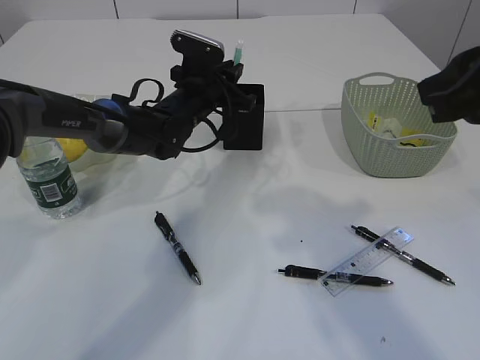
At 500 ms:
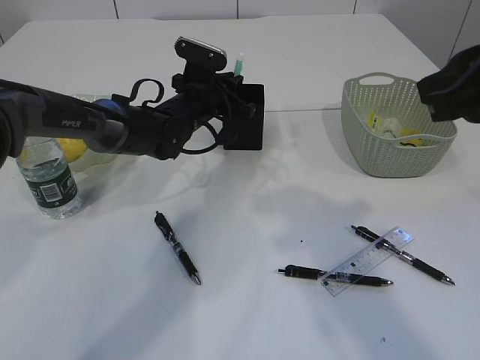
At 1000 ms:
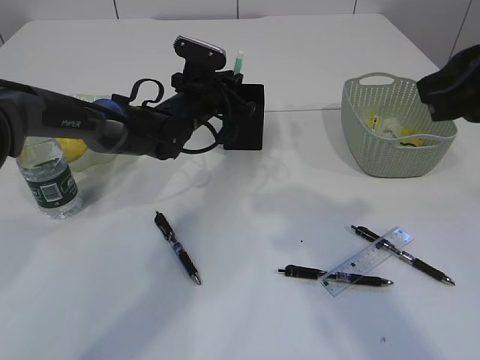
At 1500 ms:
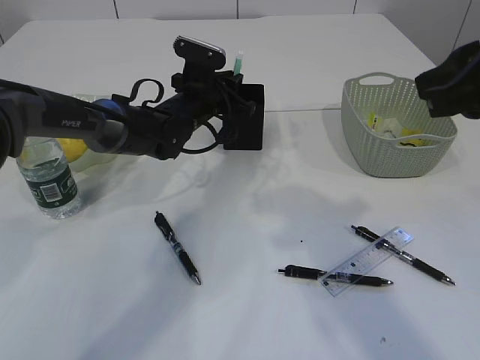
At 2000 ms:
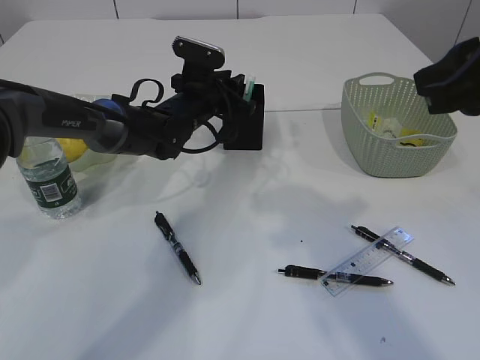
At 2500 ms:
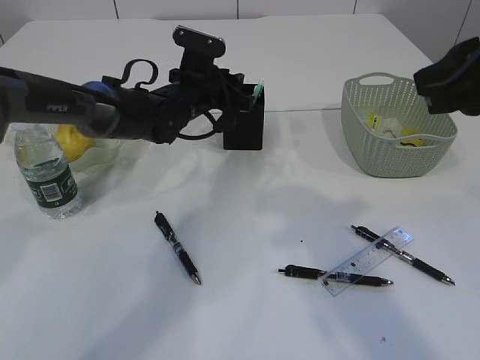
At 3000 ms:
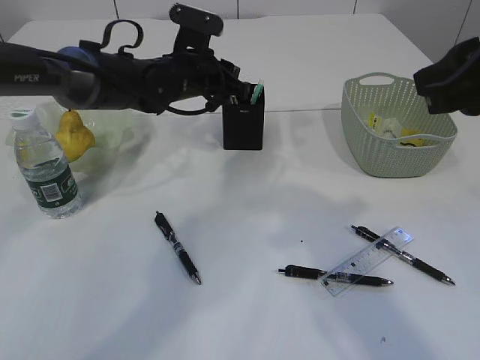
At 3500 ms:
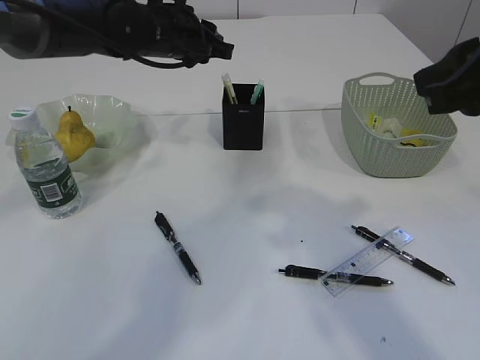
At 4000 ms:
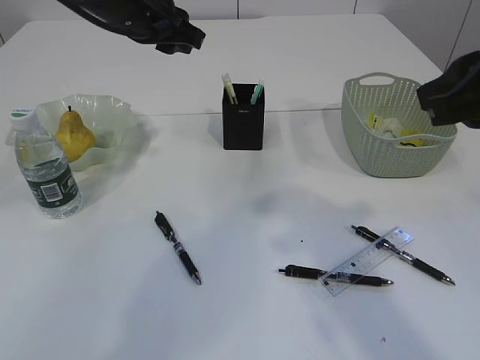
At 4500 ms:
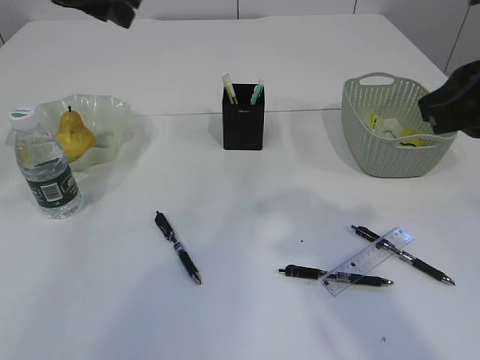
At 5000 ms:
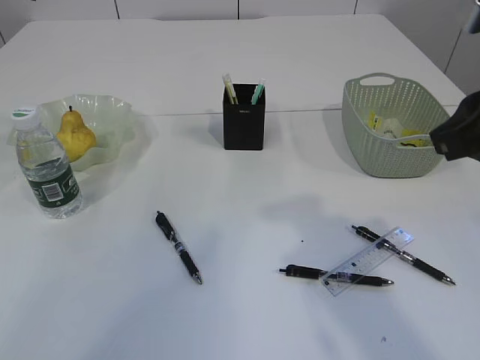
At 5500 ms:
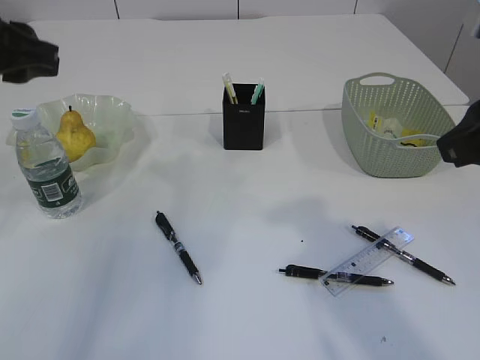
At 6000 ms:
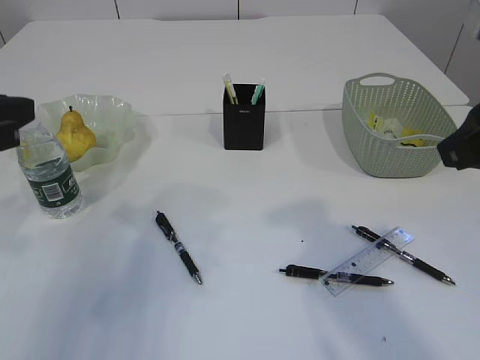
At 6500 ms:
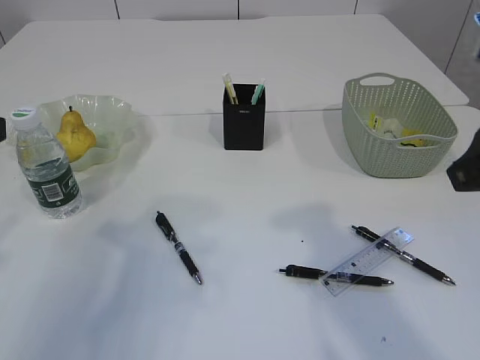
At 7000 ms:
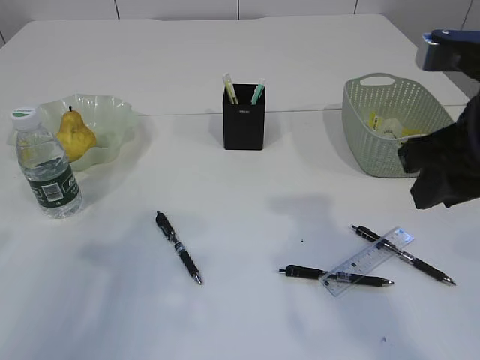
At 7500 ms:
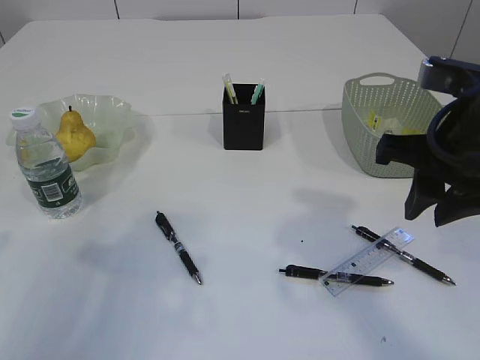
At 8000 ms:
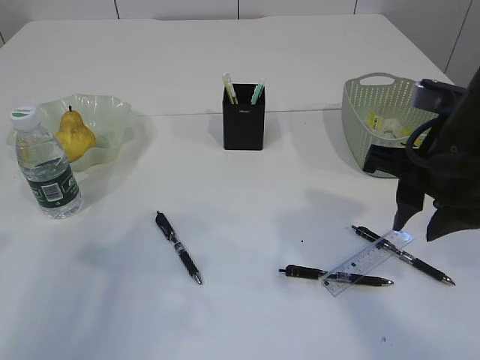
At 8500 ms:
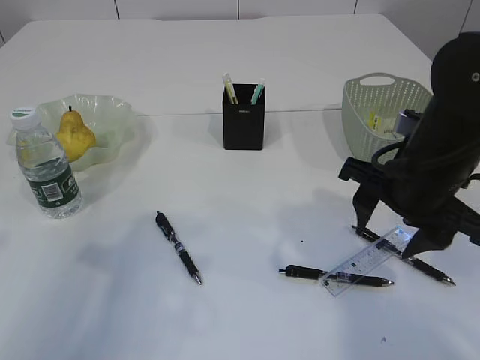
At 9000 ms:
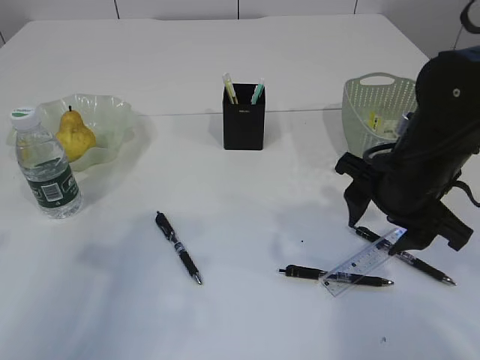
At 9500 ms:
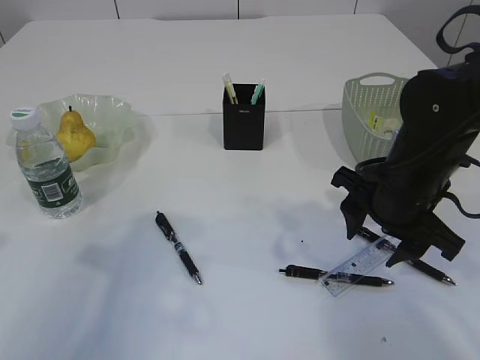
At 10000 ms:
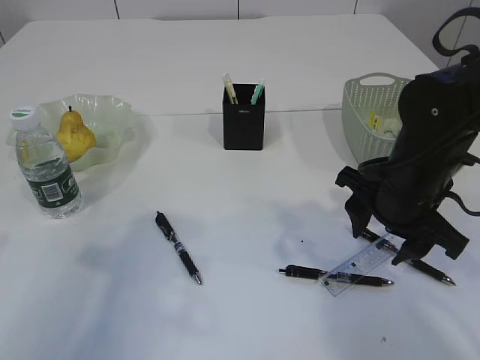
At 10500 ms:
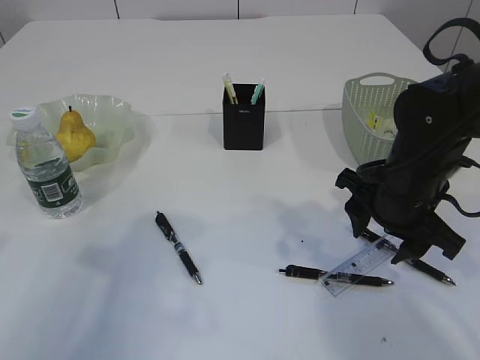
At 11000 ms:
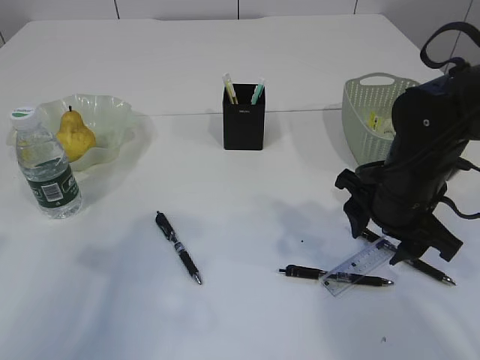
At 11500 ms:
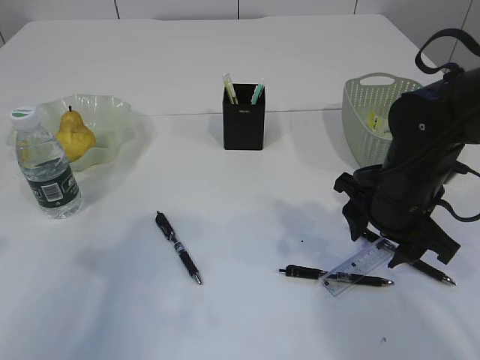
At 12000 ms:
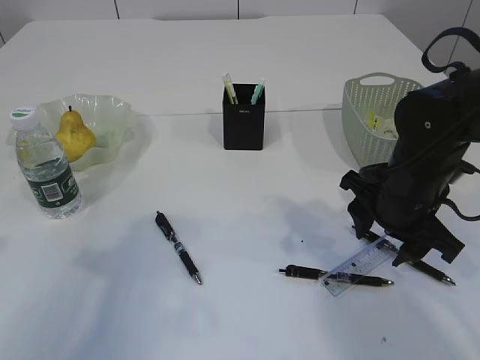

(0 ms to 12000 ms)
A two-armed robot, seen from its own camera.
Step, 0 ms - 2000 ms: Place the blue knife into the pen holder.
0 ms - 2000 ms: The grippers move only a little.
2000 ms - 4000 ms: The left gripper shifts approximately 15 cm upward.
4000 ms - 6000 ms: The left gripper heads backward and to the left, covering roughly 25 cm.
6000 ms - 8000 ms: The left gripper heads backward, covering about 5 cm. Meanwhile the right gripper is displaced downward and forward by about 10 cm.
8000 ms - 10000 ms: The right gripper moves downward, approximately 10 cm, and opens.
10000 ms - 12000 ms: The grippers make only small movements.

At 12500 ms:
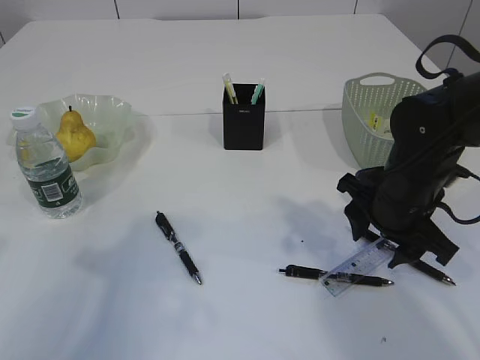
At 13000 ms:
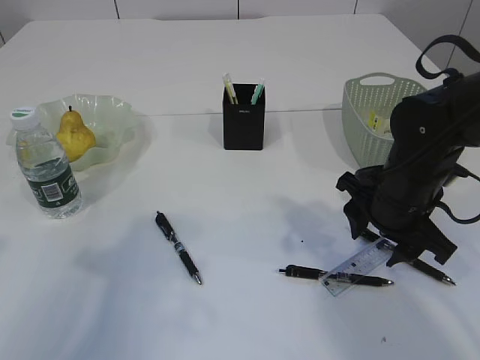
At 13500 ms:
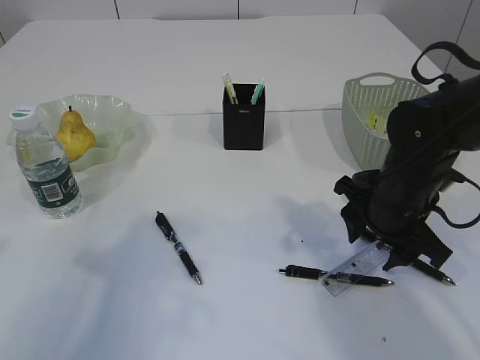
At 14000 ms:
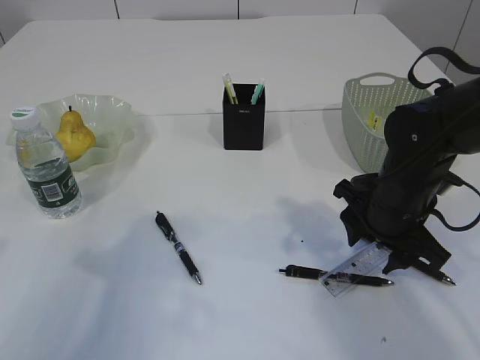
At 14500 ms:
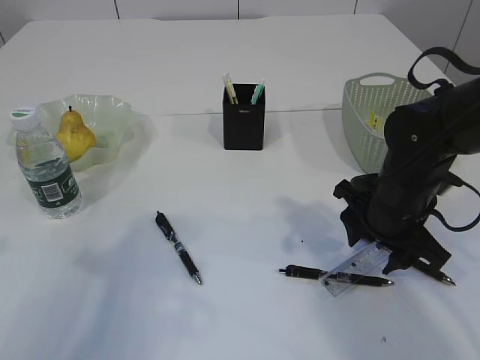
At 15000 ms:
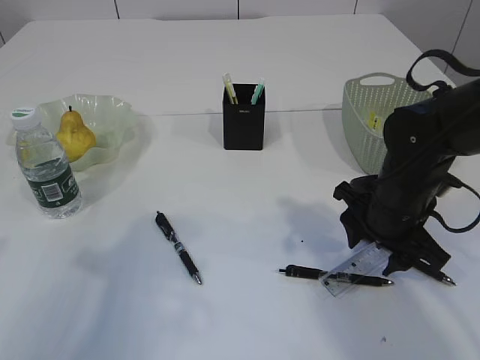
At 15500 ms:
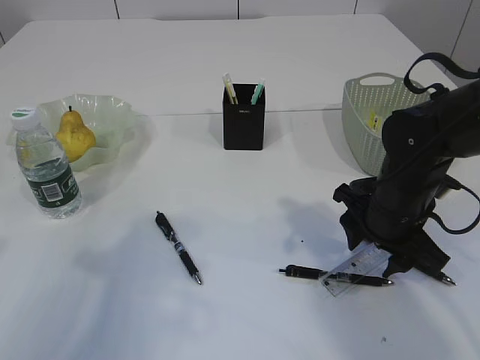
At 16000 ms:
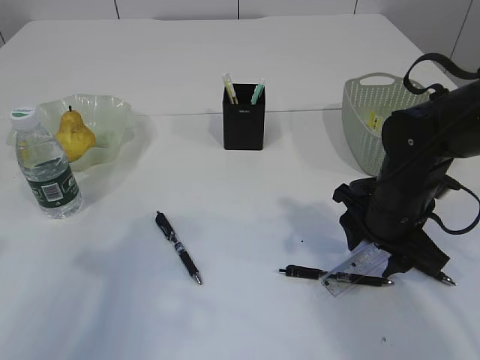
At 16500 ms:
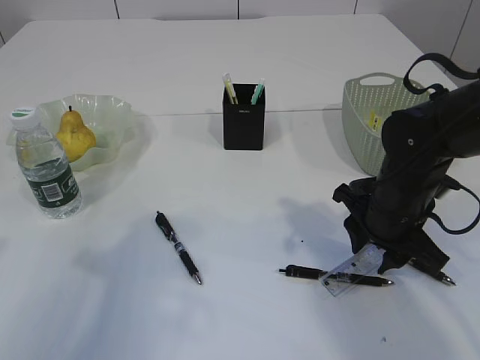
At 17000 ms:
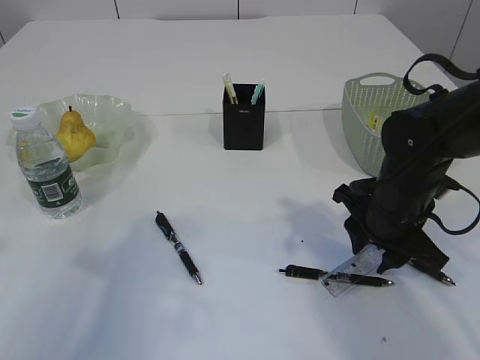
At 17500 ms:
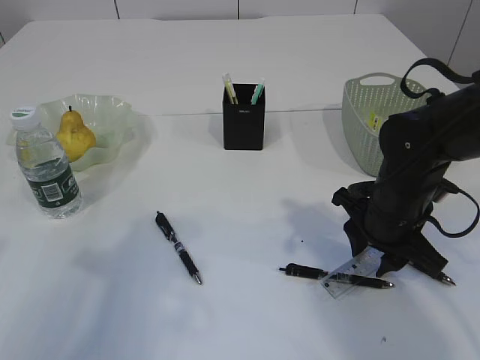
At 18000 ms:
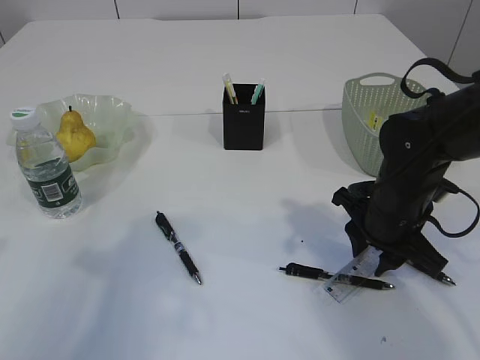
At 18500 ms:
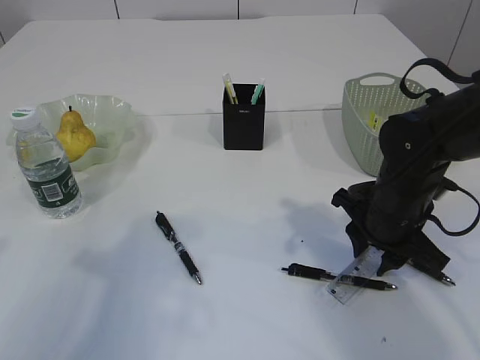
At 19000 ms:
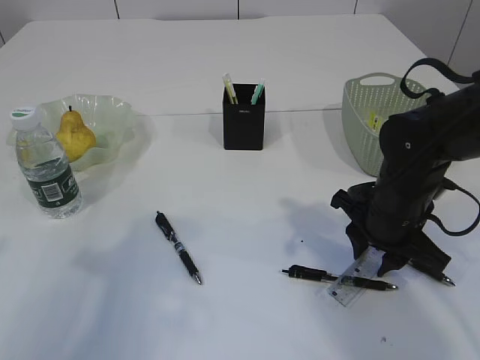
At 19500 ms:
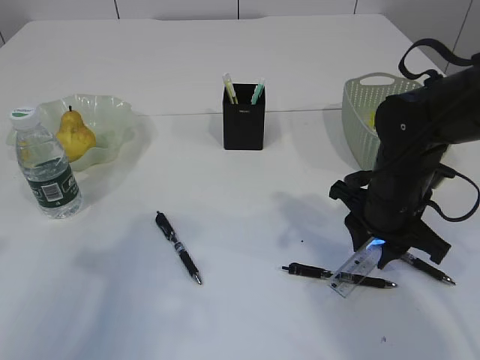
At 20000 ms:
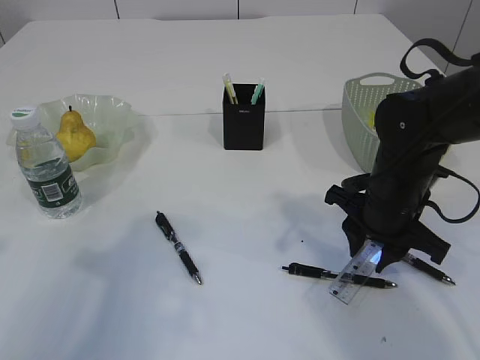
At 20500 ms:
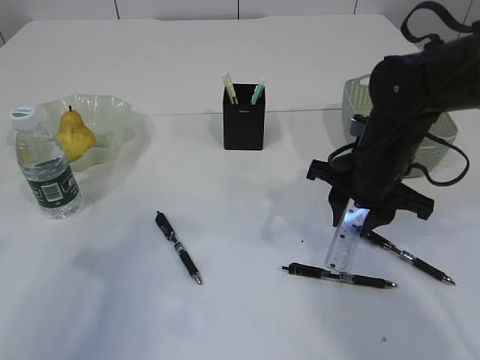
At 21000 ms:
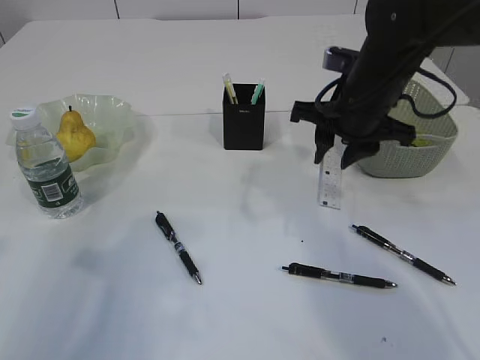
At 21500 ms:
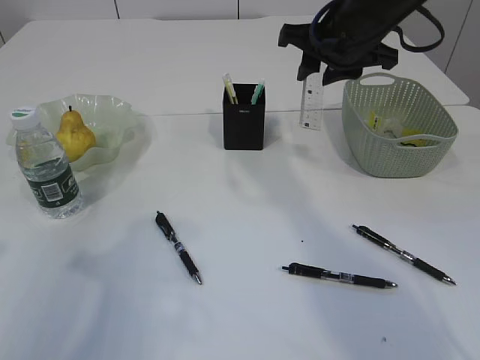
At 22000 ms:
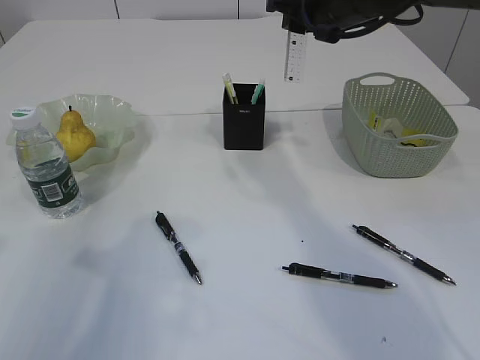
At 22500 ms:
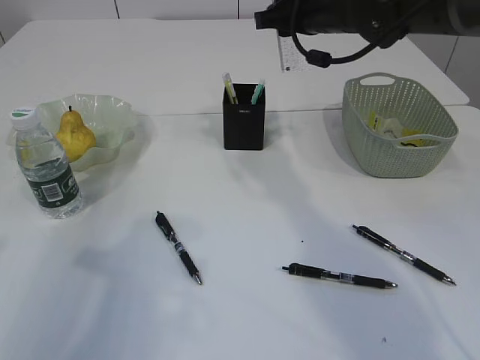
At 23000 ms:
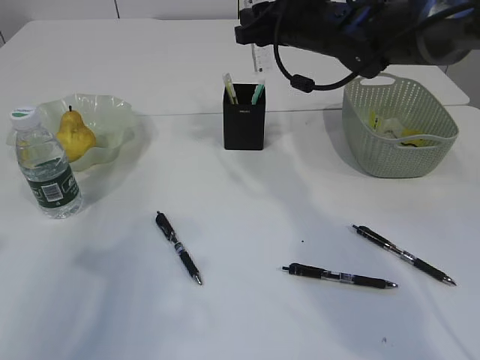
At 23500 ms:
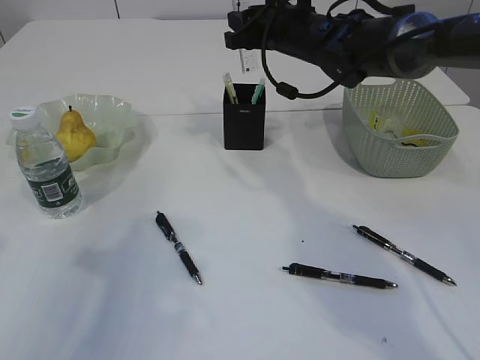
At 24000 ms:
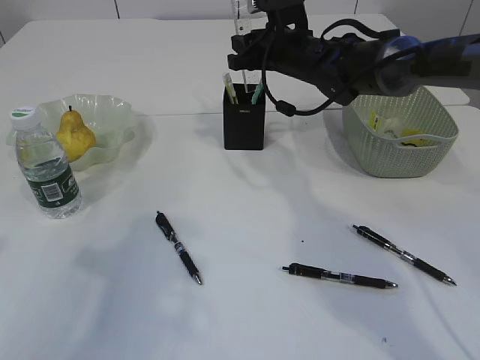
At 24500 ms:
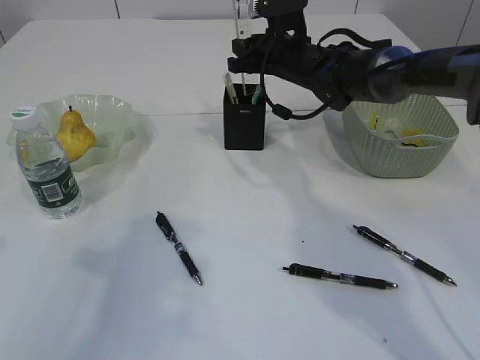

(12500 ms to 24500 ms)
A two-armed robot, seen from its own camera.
Step, 12500 ms - 20000 ms: pick up the ruler.
12500 ms - 14500 ms: Neither gripper changes place.
14500 ms - 18500 ms: Both grippers stay about where they are.
20500 ms - 22500 ms: The right gripper travels upward and forward by roughly 20 cm.
22500 ms - 24500 ms: The right gripper moves downward and forward, some 10 cm.

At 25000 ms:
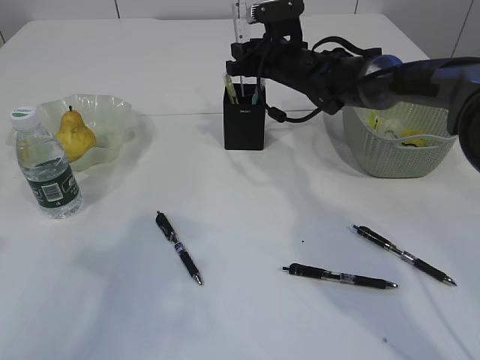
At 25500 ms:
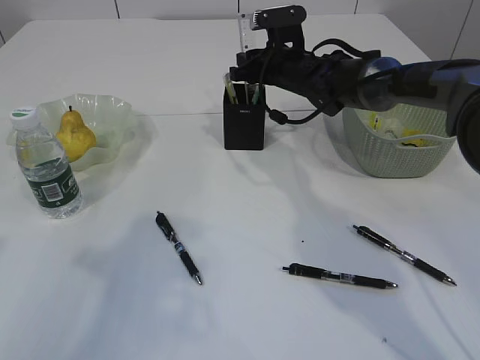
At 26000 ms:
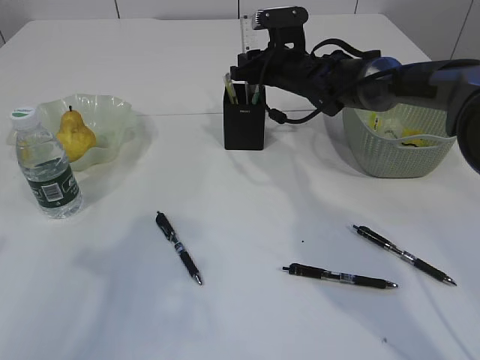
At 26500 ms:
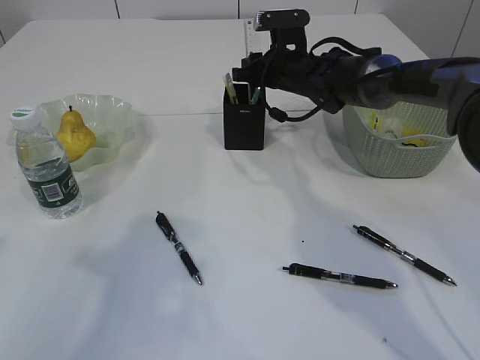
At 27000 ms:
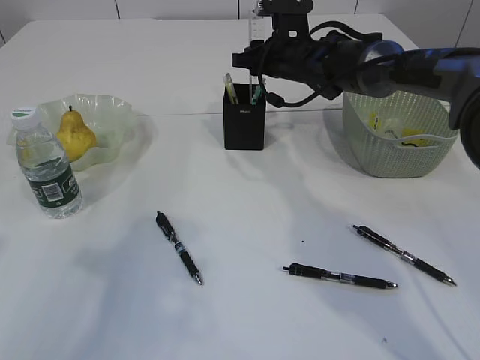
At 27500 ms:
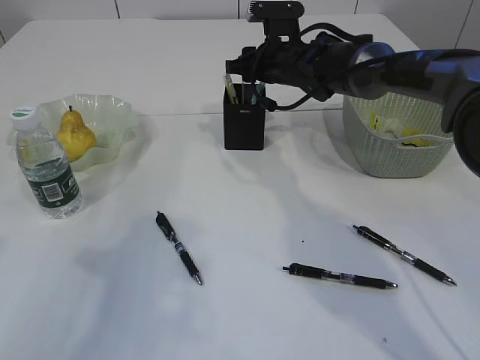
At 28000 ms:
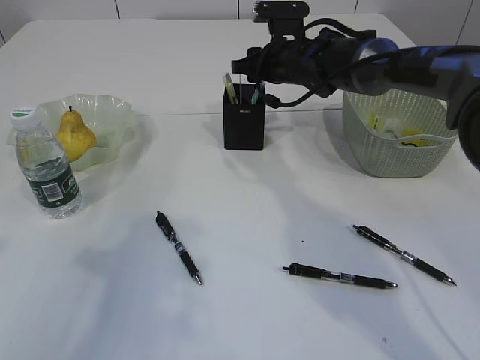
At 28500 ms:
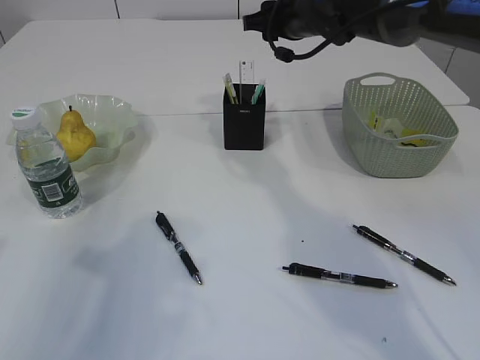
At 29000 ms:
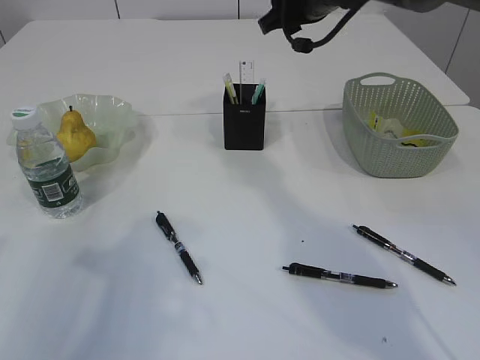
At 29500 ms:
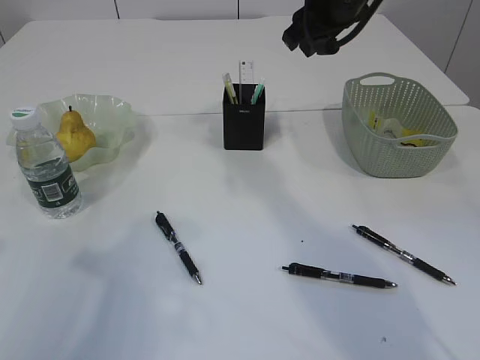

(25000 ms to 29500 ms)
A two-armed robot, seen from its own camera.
Step, 25000 ms - 27500 ms: Place the ruler into the pen holder.
25000 ms - 27000 ms: The grippers move only a little.
27000 ms - 29500 ms: The right gripper heads upward and backward, covering about 15 cm.
